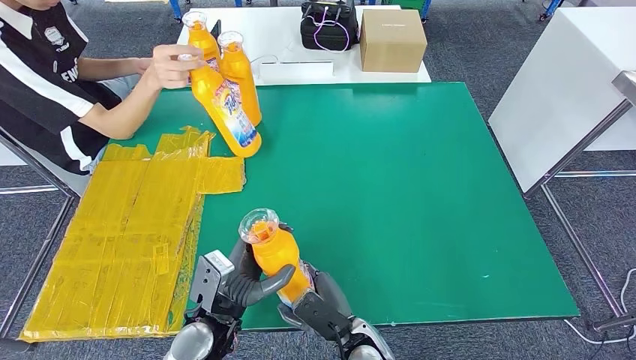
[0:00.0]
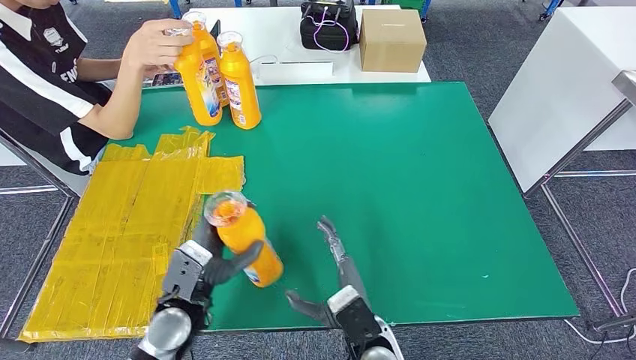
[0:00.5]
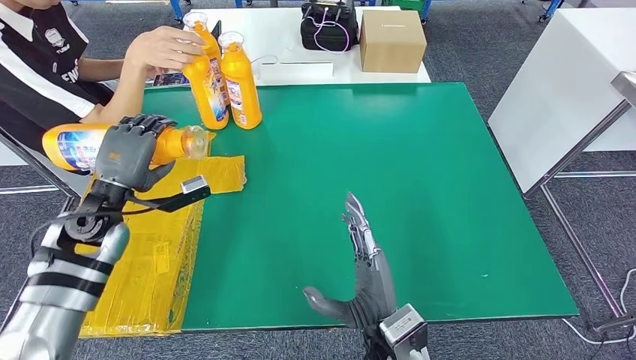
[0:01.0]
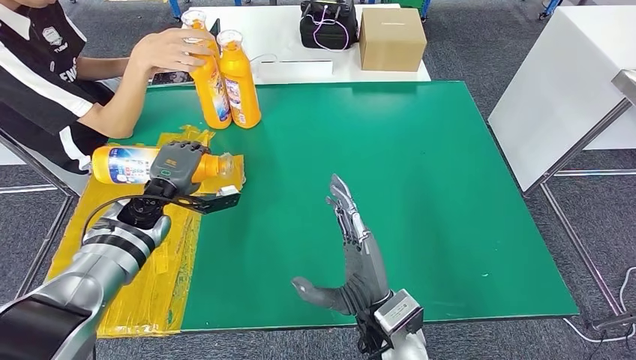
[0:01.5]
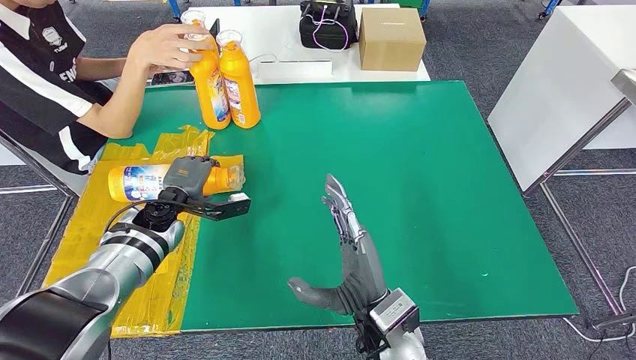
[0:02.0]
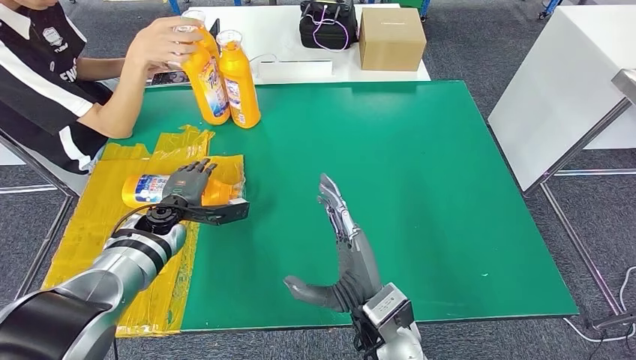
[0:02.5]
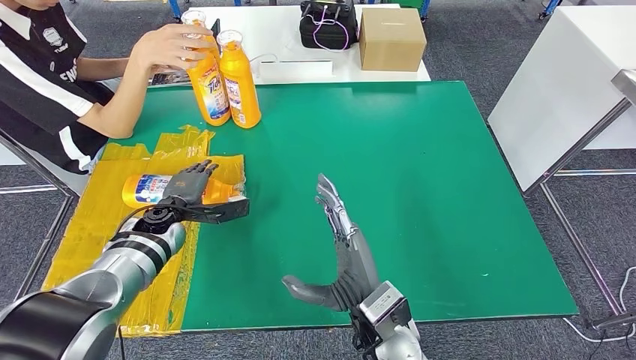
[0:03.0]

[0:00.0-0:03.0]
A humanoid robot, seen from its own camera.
Step, 0:00.0 to 0:03.0: Flip the bottle to face forward.
